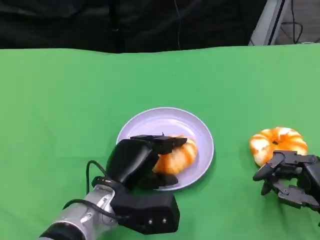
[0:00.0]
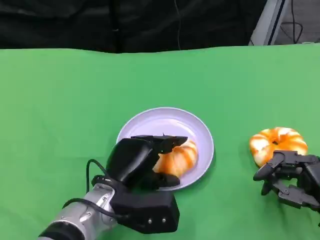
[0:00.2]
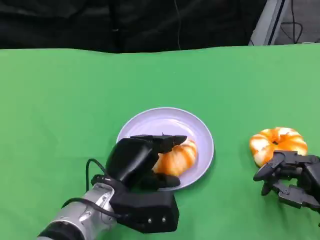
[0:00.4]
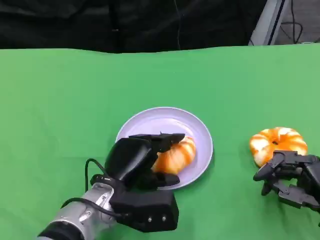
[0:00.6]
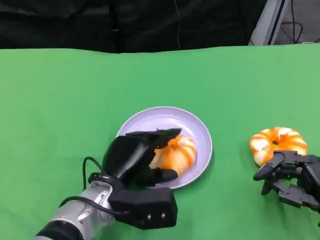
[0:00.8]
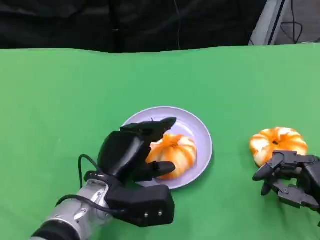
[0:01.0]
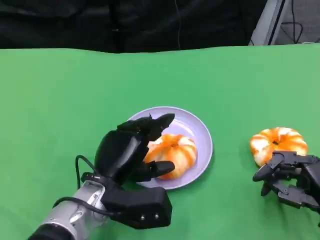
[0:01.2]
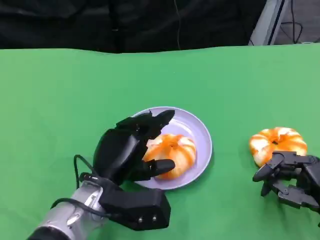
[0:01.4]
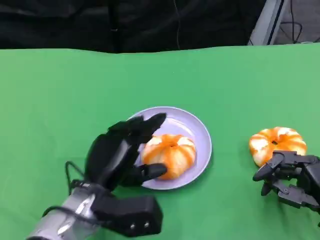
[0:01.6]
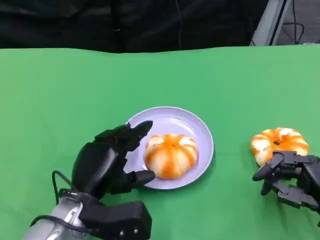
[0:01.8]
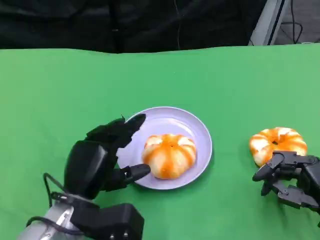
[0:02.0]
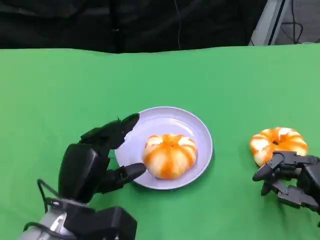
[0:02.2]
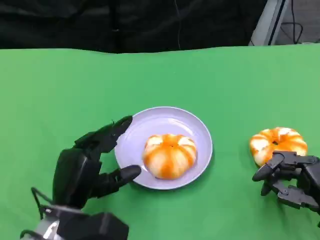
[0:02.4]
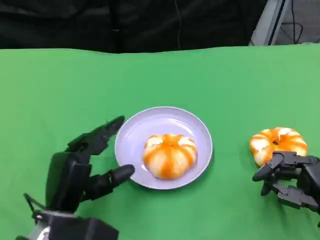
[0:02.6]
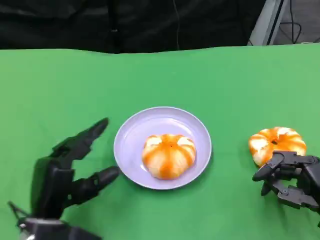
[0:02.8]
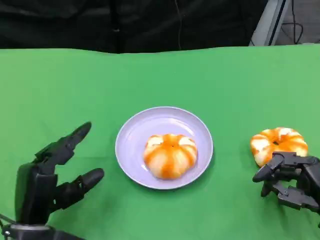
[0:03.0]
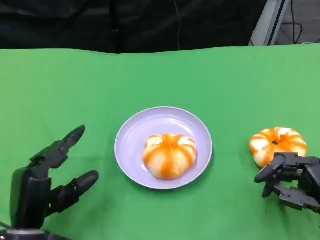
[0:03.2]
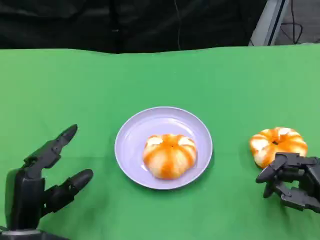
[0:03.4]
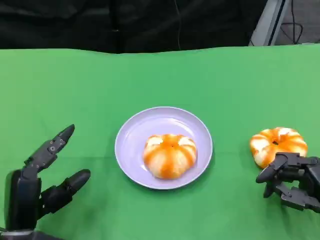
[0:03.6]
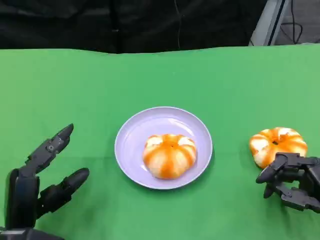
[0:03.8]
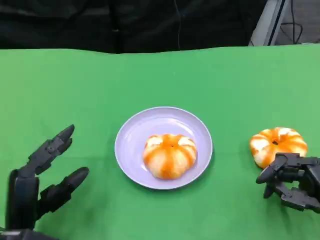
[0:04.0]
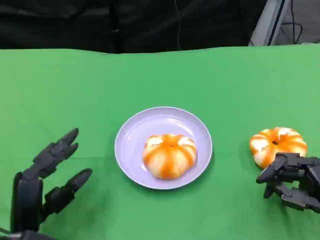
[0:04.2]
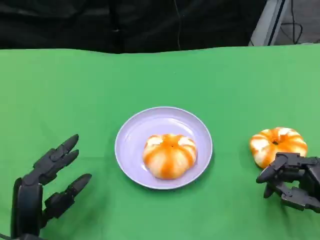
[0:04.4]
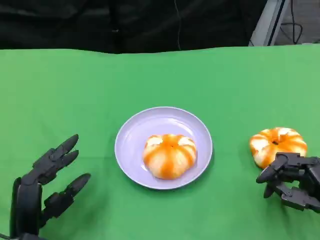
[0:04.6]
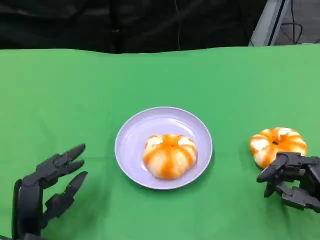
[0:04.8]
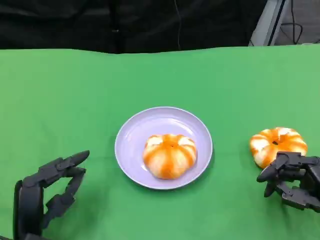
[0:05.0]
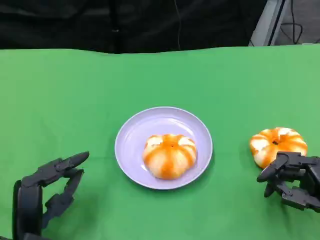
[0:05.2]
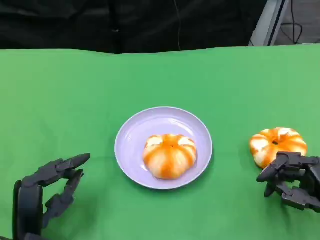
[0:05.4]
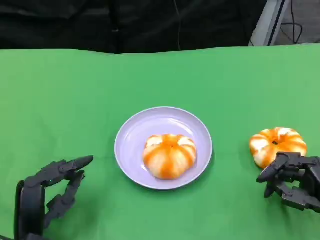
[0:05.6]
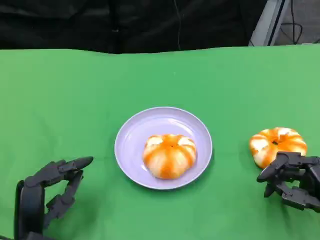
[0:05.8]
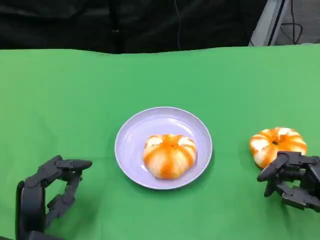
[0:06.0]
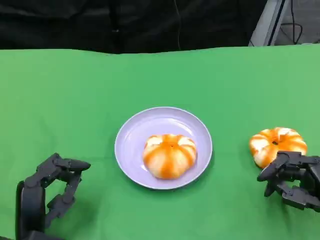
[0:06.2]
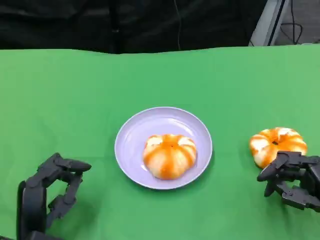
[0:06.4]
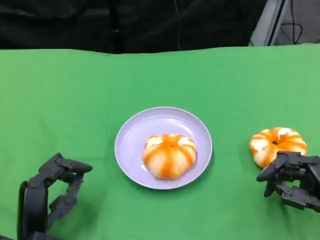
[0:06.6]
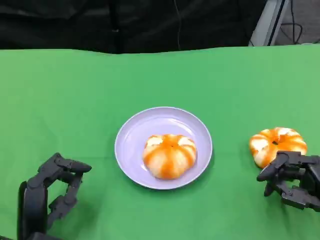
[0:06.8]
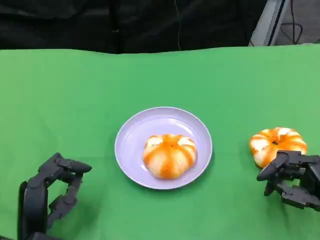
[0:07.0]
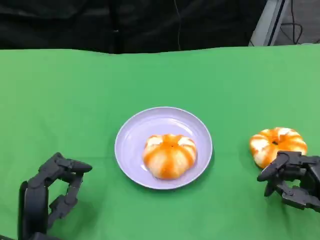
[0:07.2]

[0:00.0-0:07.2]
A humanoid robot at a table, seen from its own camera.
Task of the whole recording: Grasp the bread from the table and place it into the plate.
0:00.0 to 0:01.4: The hands stay close to where they were, moving slightly.
0:01.4 to 0:02.8: The left hand goes roughly 10 cm to the left.
0:02.8 to 0:04.4: The hands move only a little.
0:04.4 to 0:07.2: Neither hand changes place.

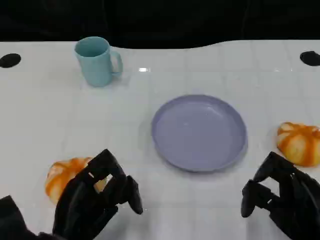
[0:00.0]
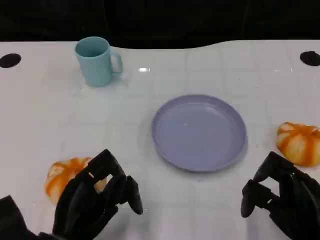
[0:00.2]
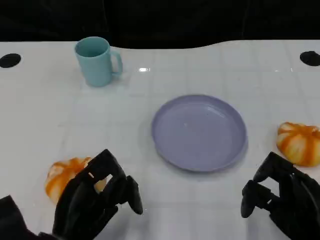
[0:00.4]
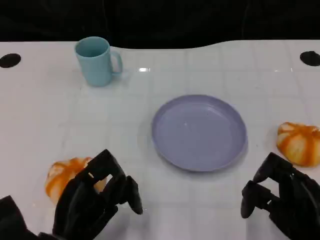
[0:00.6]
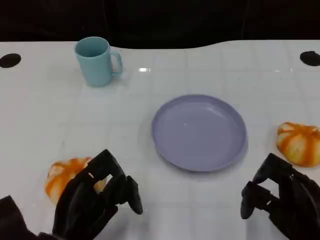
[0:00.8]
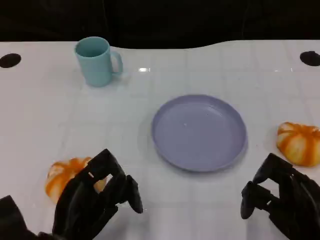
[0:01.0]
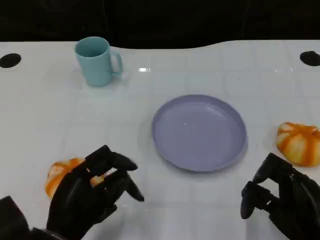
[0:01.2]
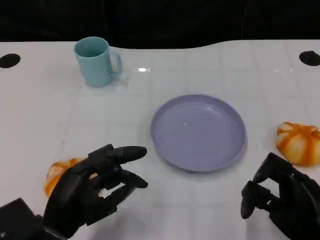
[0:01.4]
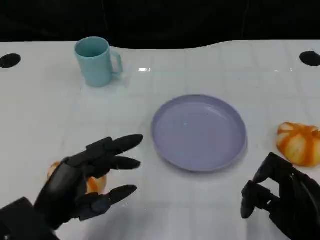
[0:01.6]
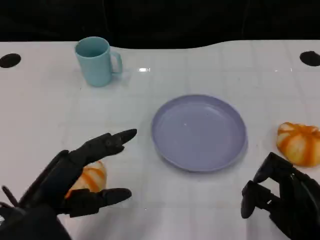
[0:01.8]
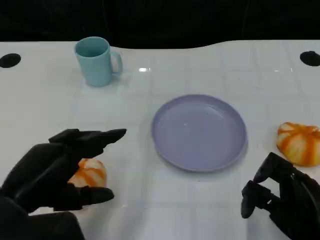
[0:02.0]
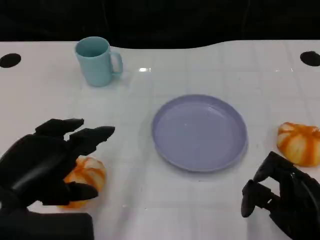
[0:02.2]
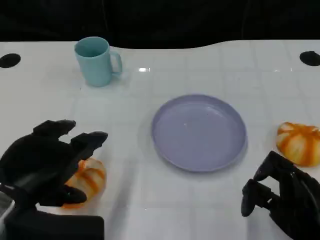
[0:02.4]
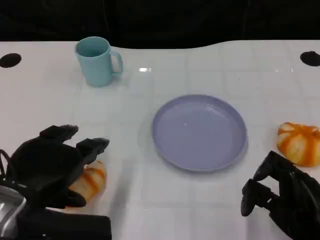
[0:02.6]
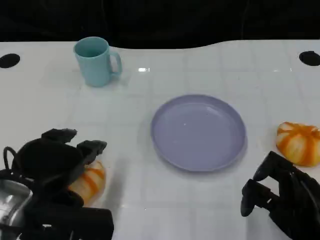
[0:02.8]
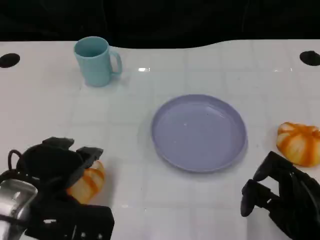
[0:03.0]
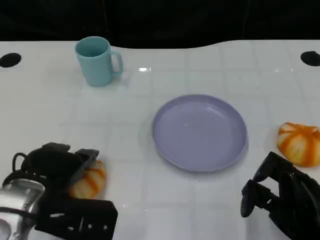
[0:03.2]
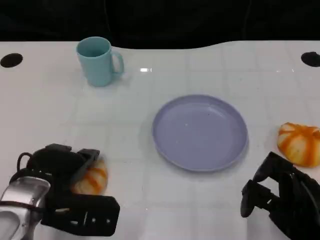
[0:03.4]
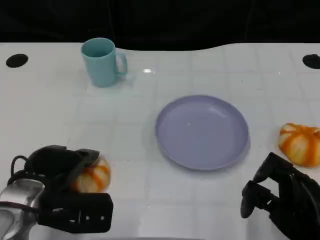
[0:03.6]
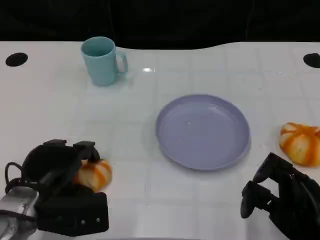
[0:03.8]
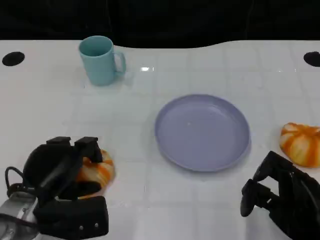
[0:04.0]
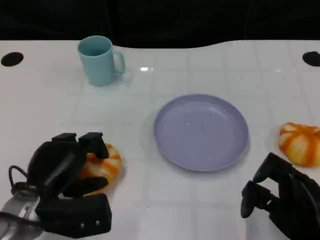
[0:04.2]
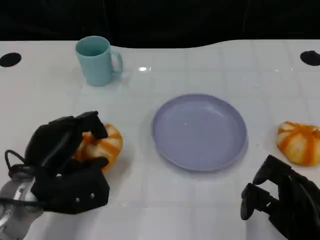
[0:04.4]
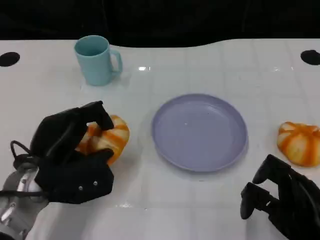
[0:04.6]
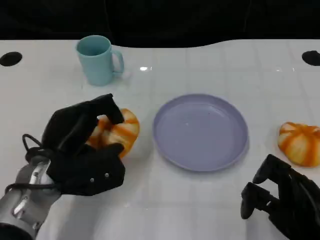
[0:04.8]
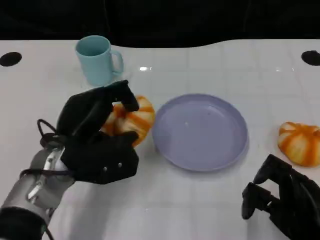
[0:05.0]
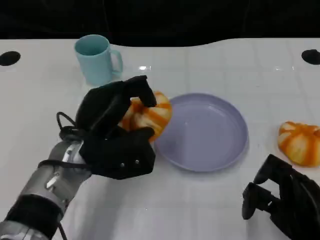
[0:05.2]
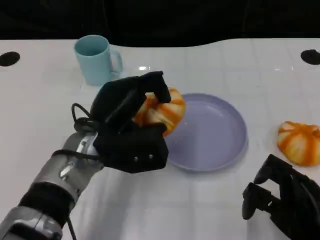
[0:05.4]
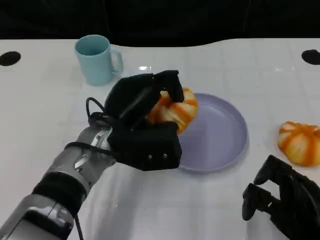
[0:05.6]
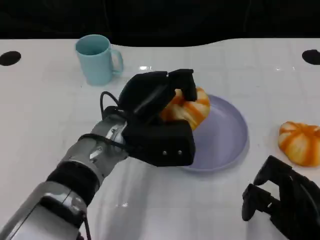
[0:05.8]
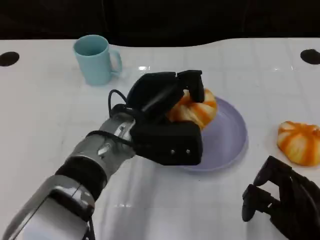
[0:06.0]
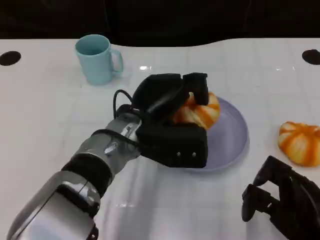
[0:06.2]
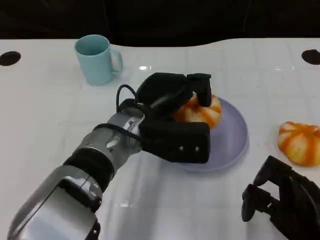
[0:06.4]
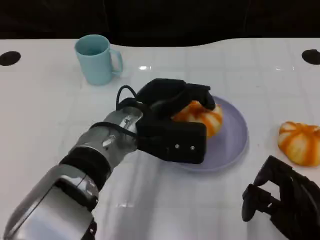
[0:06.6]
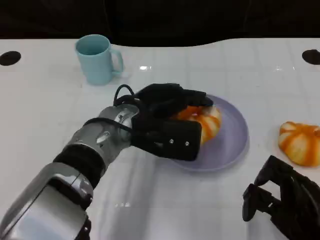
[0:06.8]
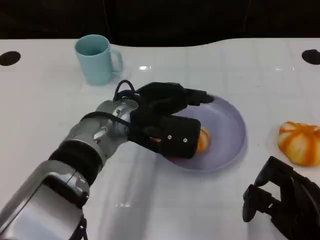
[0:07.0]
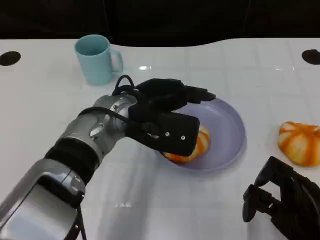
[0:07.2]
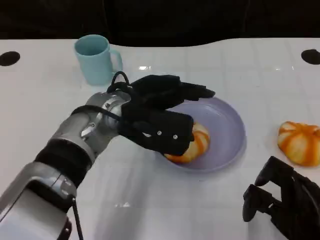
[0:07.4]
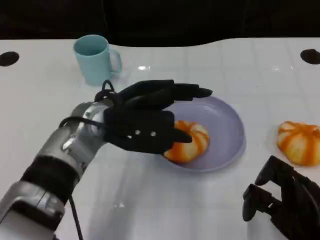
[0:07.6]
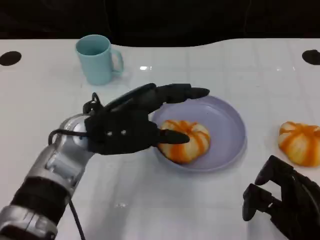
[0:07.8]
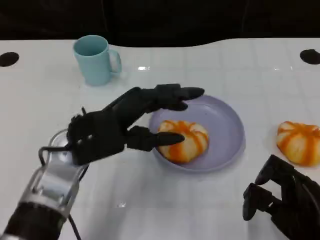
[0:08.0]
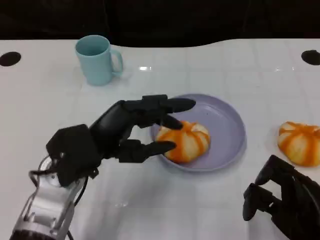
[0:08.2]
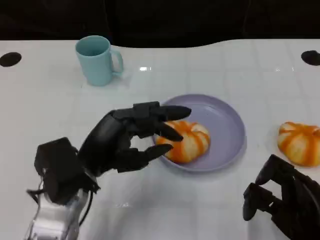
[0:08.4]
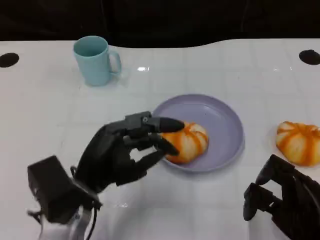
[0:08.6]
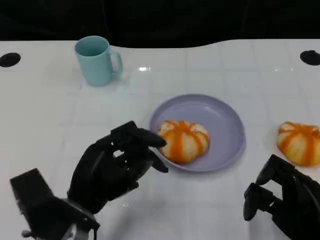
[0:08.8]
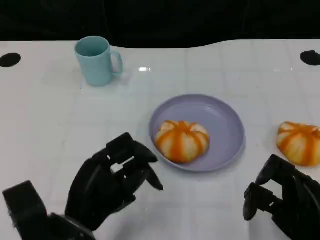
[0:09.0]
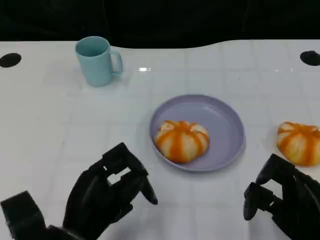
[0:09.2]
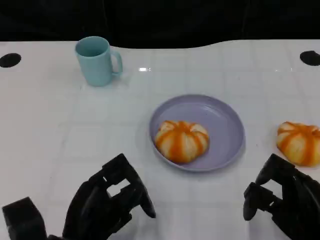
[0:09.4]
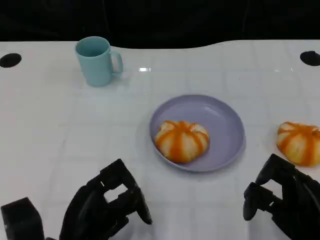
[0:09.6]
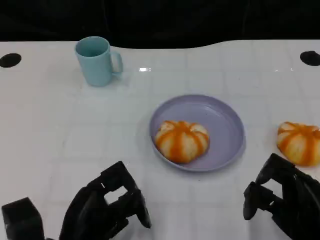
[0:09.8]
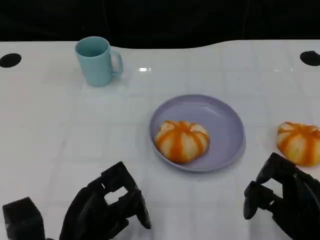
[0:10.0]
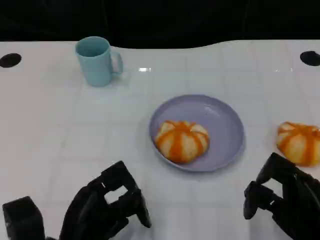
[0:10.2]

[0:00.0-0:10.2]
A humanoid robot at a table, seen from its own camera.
Task of the whole recording: Grasp the bread from the table and place it into the plate.
0:01.4 to 0:03.0: The left hand ends up some 5 cm from where it was.
0:03.0 to 0:04.4: The left hand changes place by about 5 cm.
0:04.4 to 0:05.8: The left hand moves to the right and forward, roughly 15 cm.
0:07.2 to 0:08.8: The left hand is displaced backward, to the left and downward by approximately 15 cm.
0:08.8 to 0:10.2: There are only small adjustments of the hands.

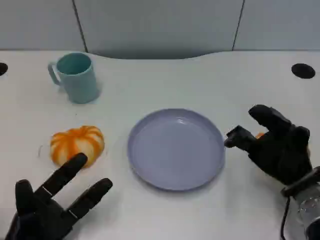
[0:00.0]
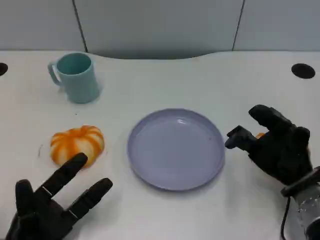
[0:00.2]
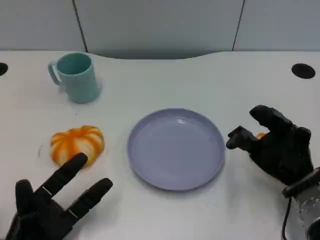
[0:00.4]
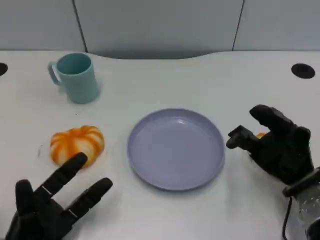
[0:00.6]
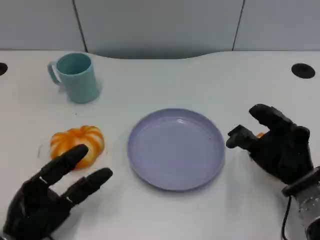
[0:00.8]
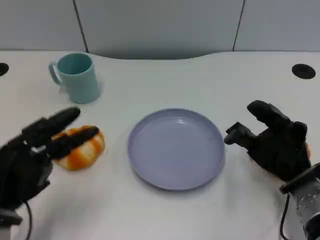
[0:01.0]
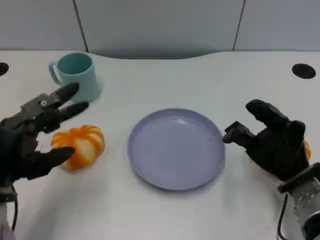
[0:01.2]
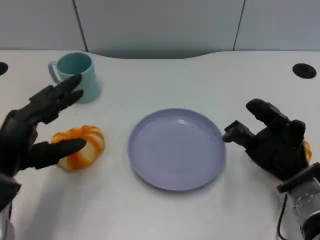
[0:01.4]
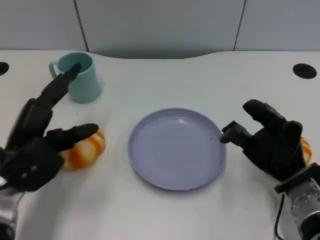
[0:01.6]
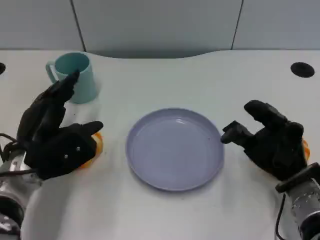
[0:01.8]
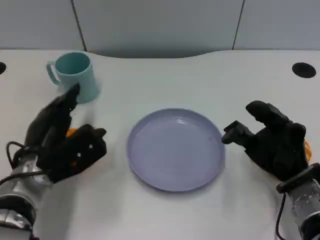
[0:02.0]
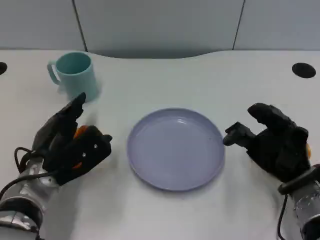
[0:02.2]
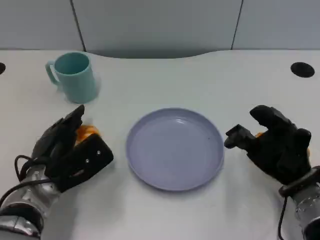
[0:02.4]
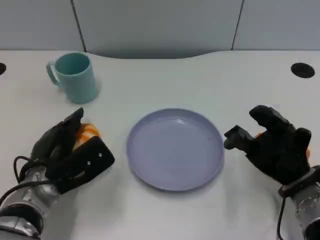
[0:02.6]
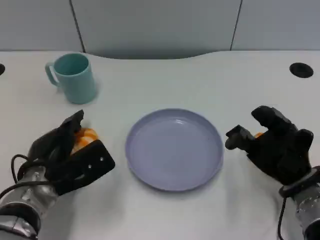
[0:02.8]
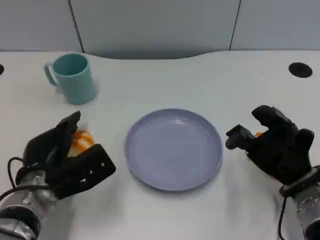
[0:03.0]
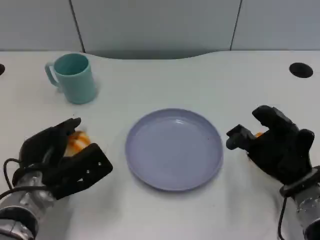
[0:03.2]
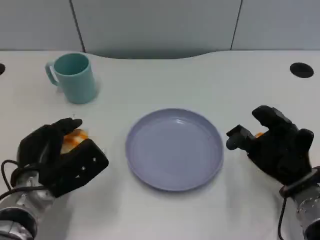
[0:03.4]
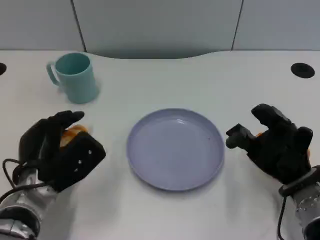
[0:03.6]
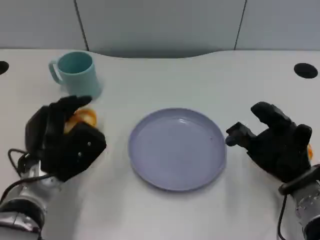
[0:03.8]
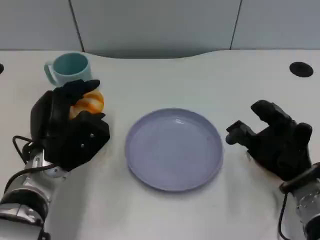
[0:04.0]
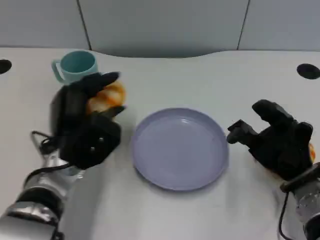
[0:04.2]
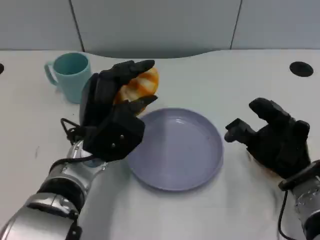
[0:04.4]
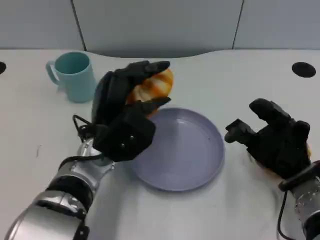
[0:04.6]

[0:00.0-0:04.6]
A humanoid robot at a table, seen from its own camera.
Task of the whole recording: Grasp the bread from the table and place it into the plate.
0:00.0 to 0:01.6: The left hand is displaced upward and forward by some 15 cm.
0:01.6 to 0:03.0: The left hand shifts by approximately 5 cm.
0:03.0 to 0:04.6: The left hand goes some 10 cm to the right and upward.
